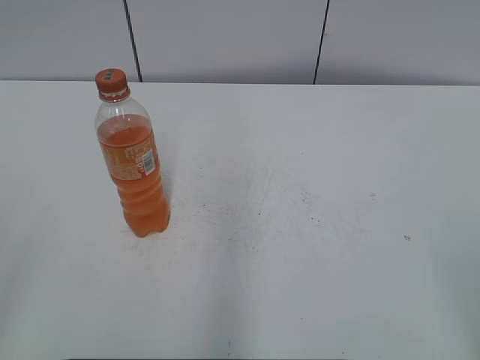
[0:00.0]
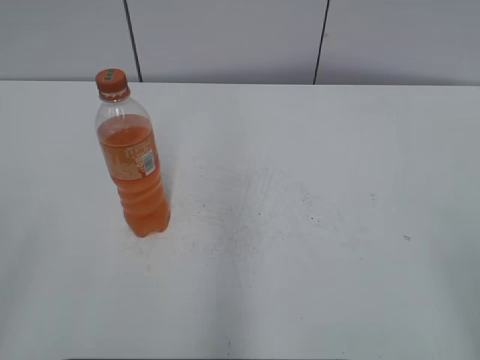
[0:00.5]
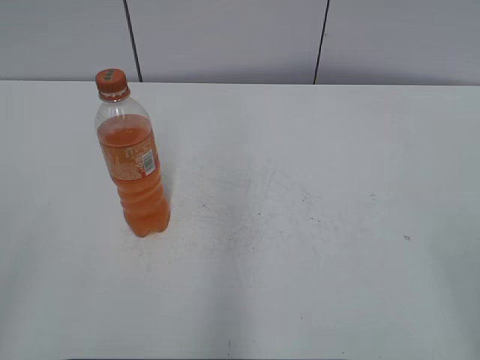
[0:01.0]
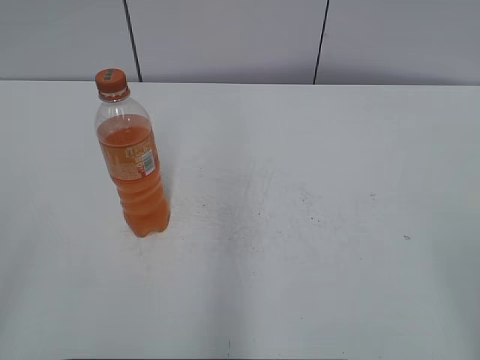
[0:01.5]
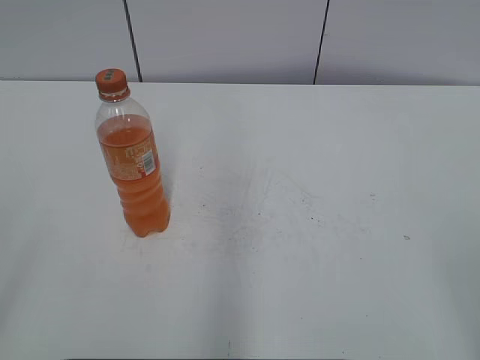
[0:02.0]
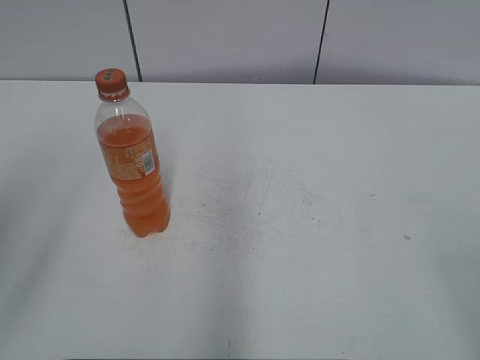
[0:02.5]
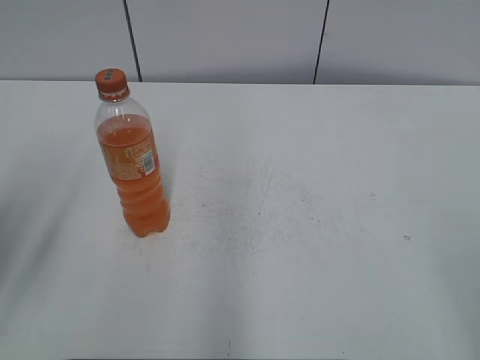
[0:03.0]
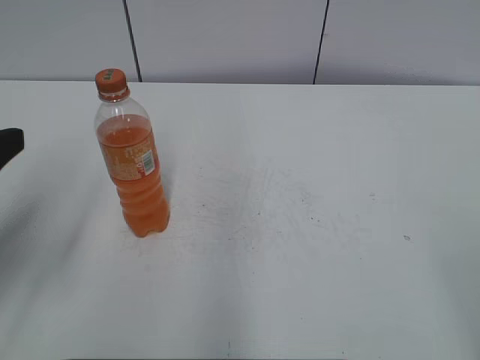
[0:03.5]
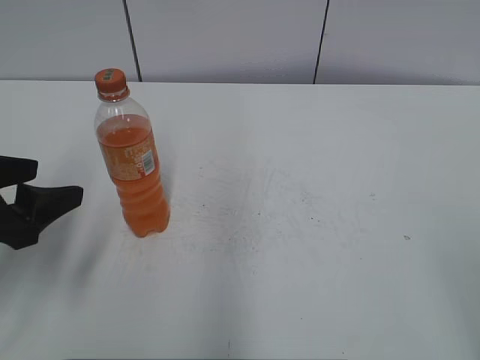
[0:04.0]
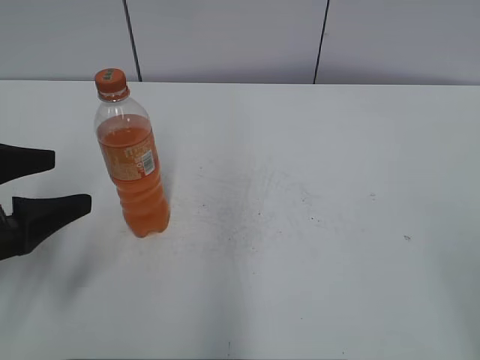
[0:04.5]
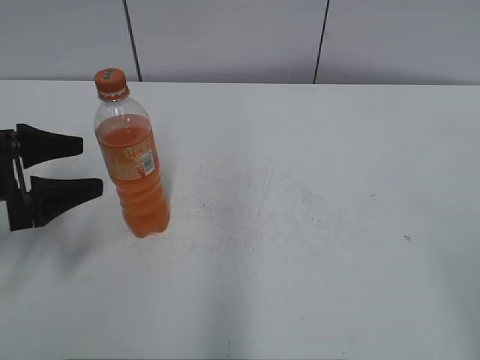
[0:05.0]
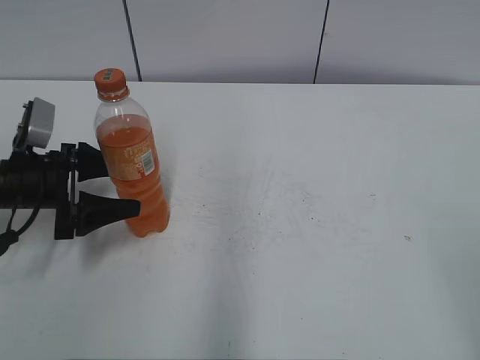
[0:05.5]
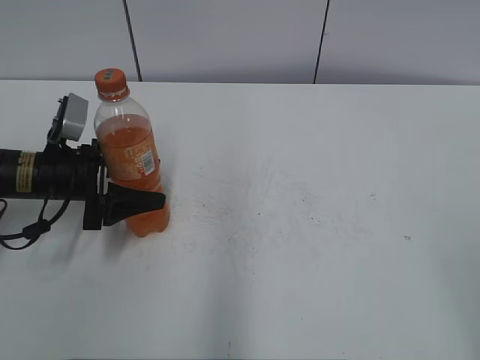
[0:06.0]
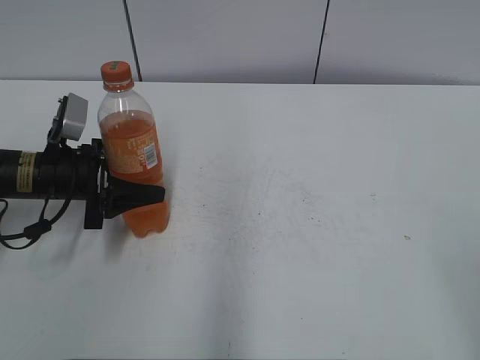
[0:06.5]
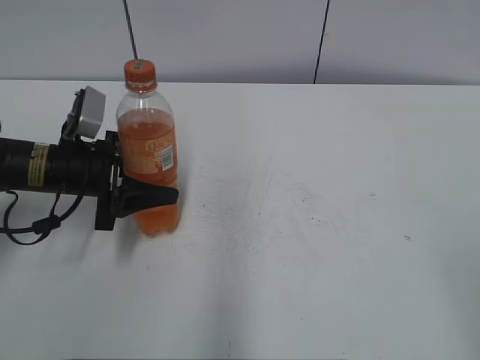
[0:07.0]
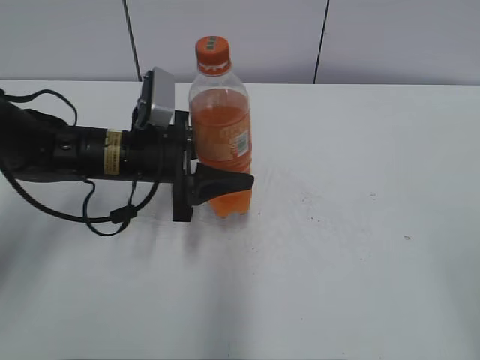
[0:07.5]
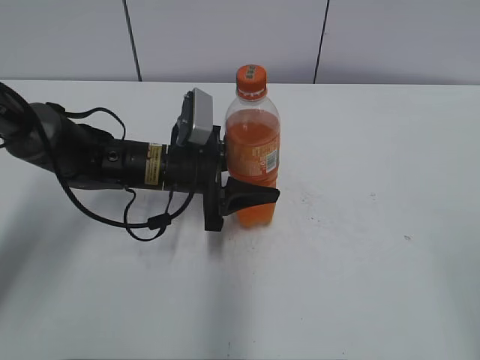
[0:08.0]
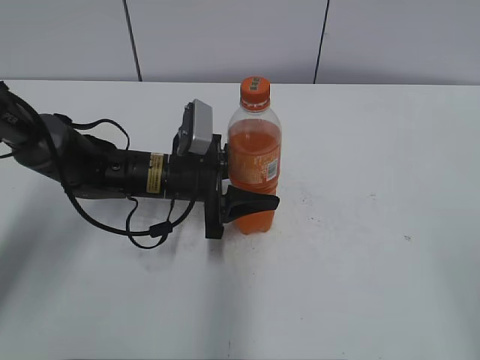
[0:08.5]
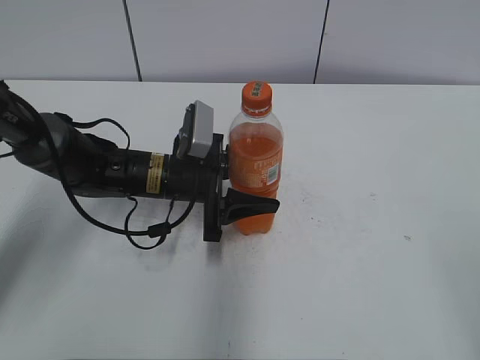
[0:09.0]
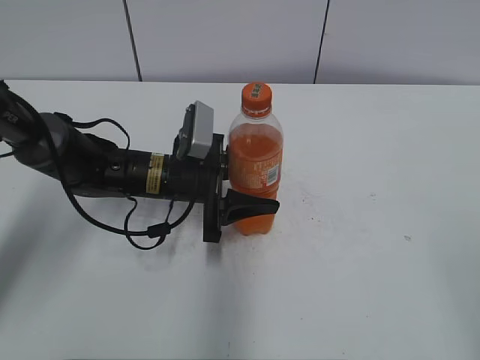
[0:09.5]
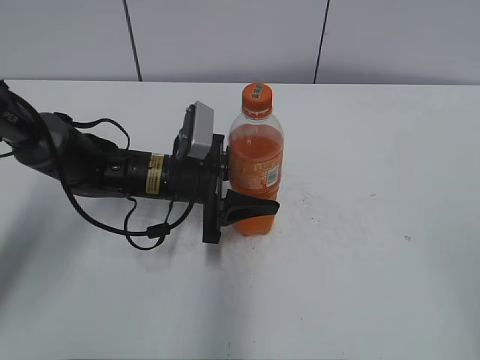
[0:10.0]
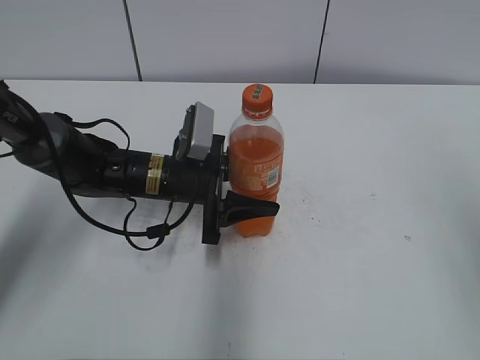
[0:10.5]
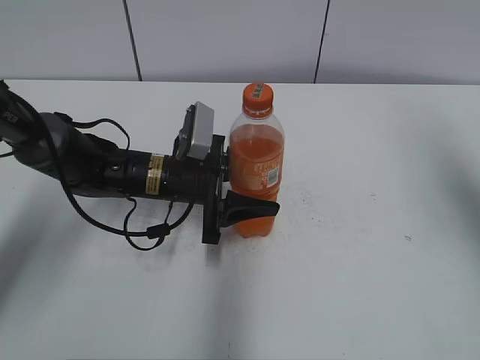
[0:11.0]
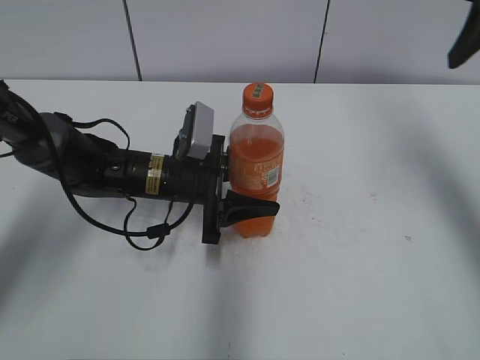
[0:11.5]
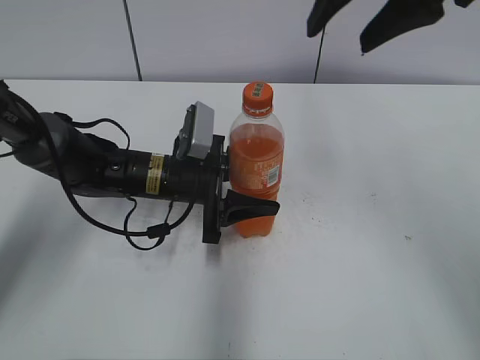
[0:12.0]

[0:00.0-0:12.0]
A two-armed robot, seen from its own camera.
Step, 0.0 to 6.0 s: Grab the Mirinda with the left hand.
Step, 6.5 to 10.0 s: Move the Mirinda from left to right.
2.0 to 4.0 s: The left gripper is displaced forward and downward by about 25 cm.
4.0 to 6.0 s: The left gripper shifts roughly 15 cm forward and downward.
6.0 to 8.0 s: The left gripper moves to the right, roughly 15 cm, and closes its fingers.
8.0 to 10.0 s: The grippers stay close to where they were, moving slightly.
10.0 to 12.0 s: The right gripper shifts some 35 cm forward and to the left.

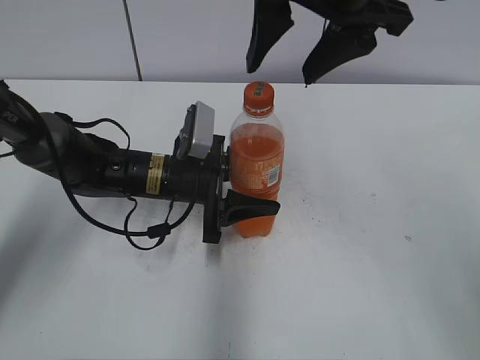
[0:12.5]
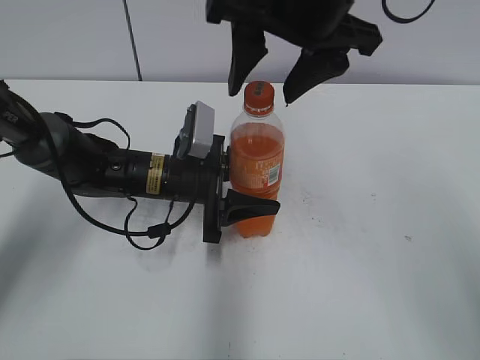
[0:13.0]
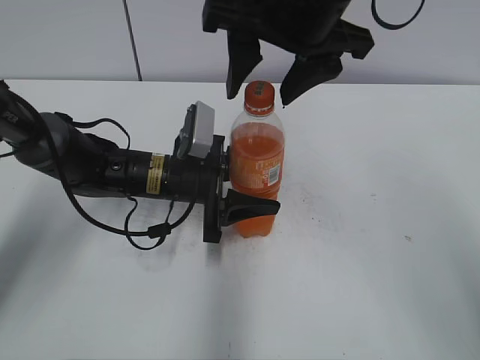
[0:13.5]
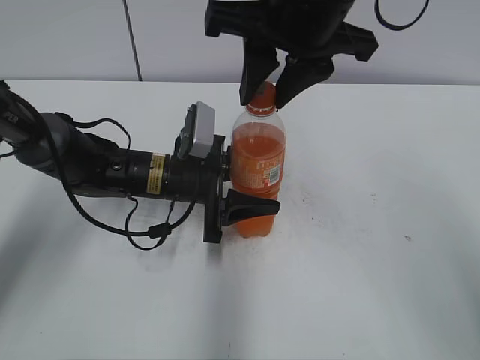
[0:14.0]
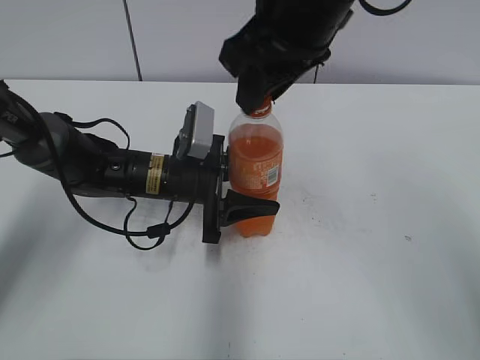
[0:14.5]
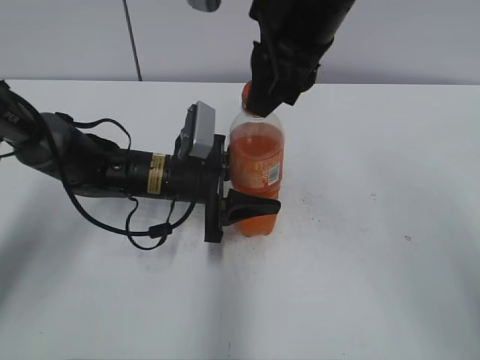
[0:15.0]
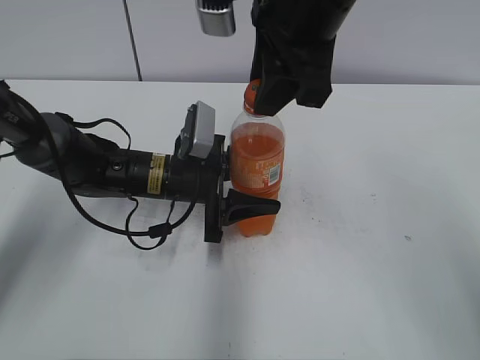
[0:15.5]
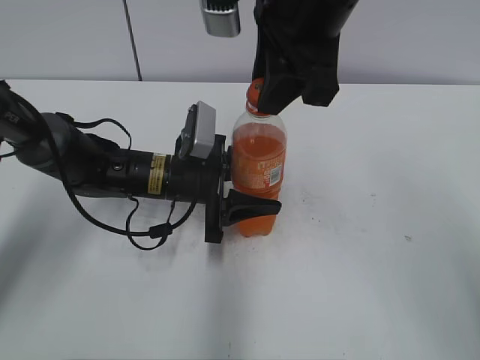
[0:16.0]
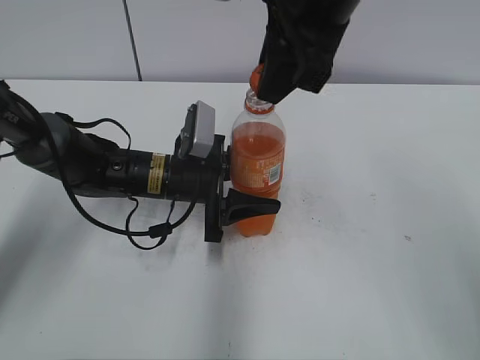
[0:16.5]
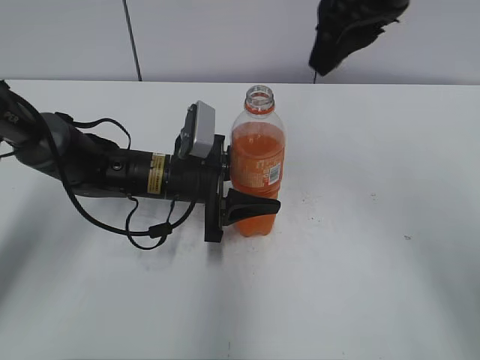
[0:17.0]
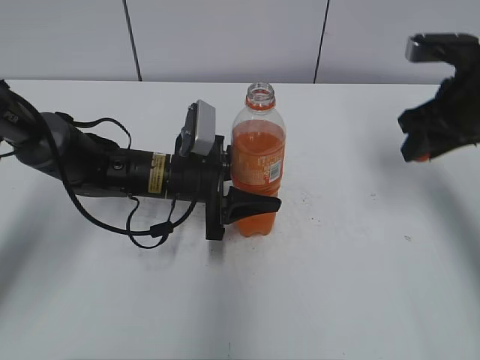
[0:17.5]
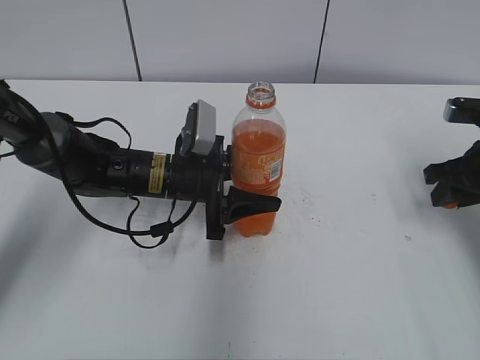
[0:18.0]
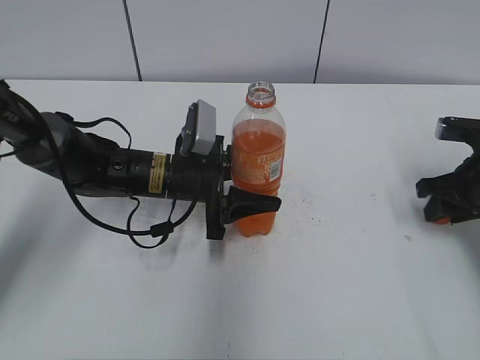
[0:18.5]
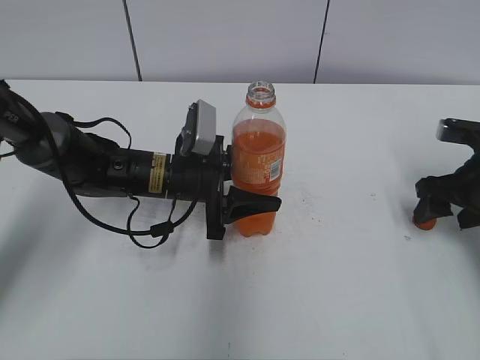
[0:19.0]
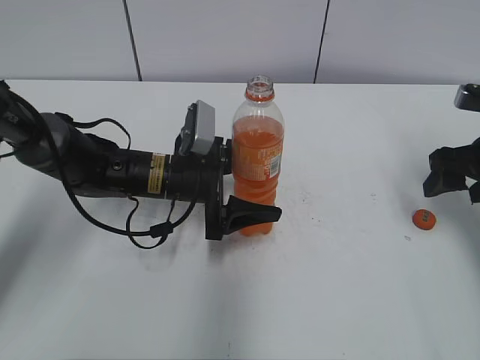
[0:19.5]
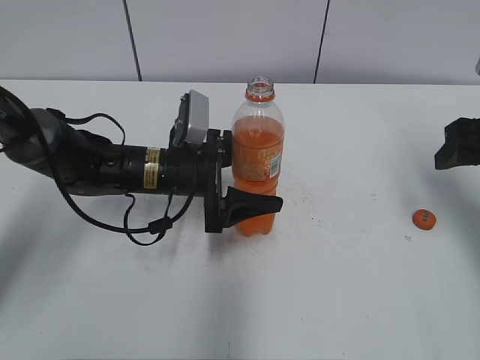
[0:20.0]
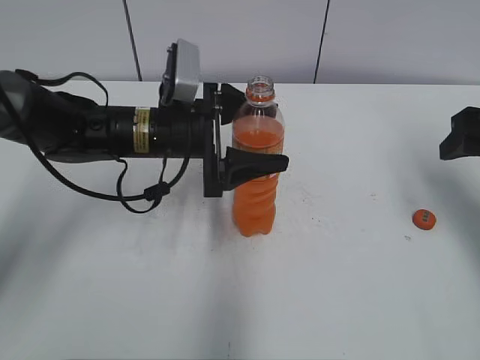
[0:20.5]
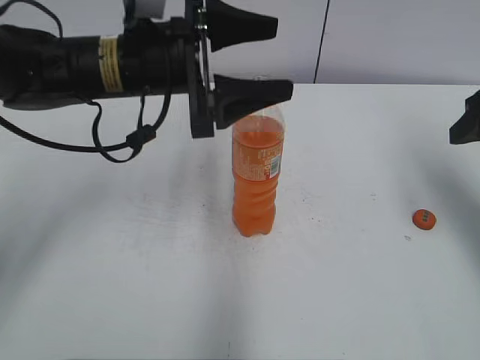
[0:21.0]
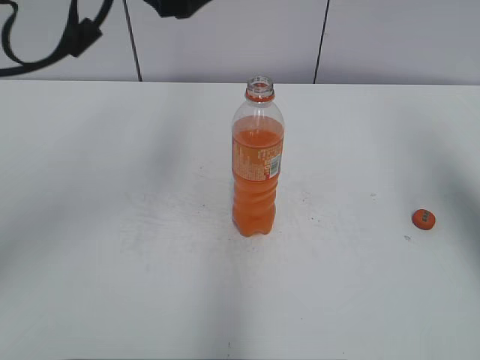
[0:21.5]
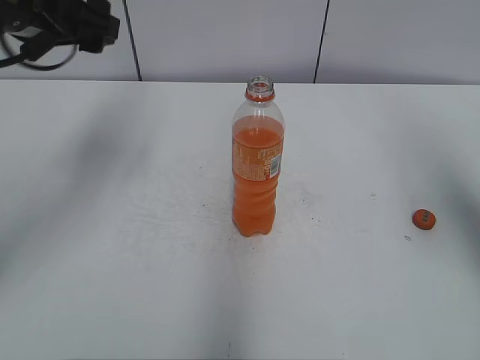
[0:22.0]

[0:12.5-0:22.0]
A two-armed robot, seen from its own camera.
Step, 17.0 to 18.5 s: Place the bottle cap on the right.
12.5 to 14.5 s: The right gripper closes its fingers.
16.5 to 18.0 s: The right gripper moves to the right and downward, approximately 30 cm.
18.0 to 20.0 s: The right gripper is displaced upward by some 5 cm, and opens. The left gripper opens up.
20.0 to 22.0 s: The right gripper travels upward and backward by roughly 15 cm, while the left gripper moves upward and to the left, about 25 cm.

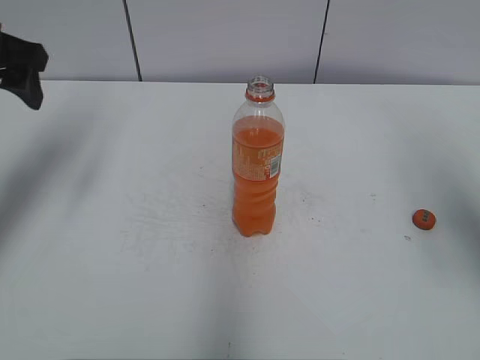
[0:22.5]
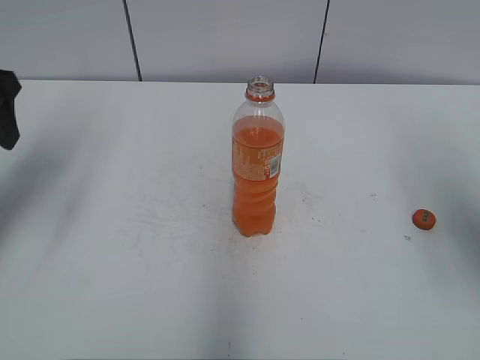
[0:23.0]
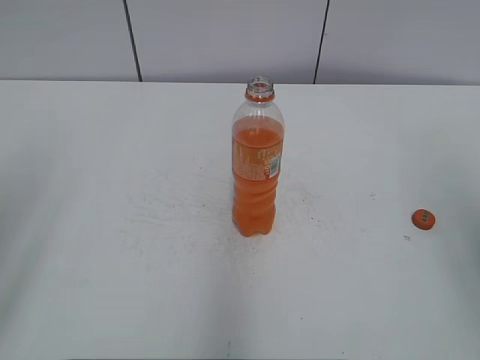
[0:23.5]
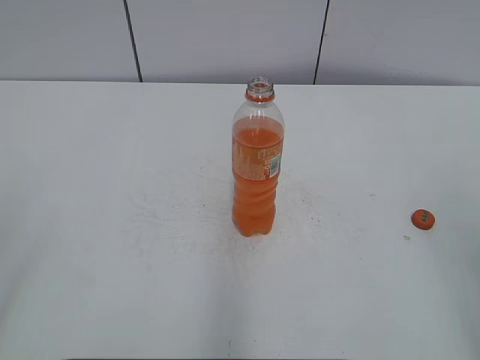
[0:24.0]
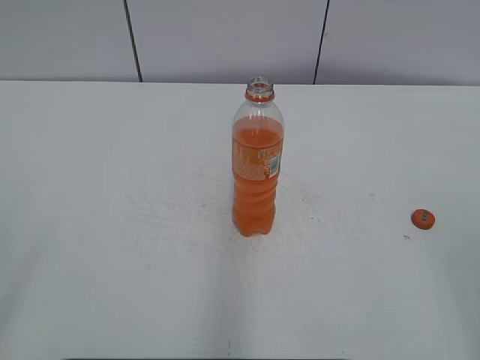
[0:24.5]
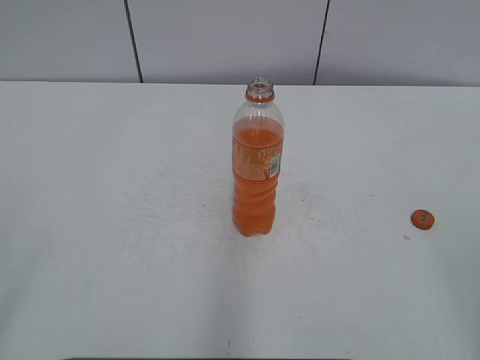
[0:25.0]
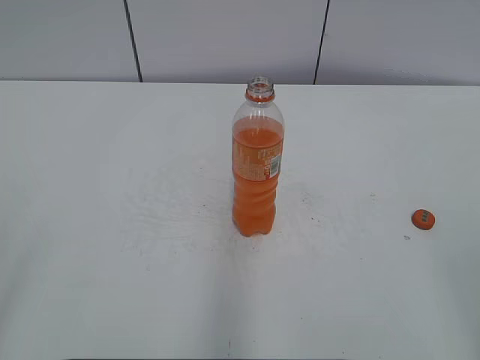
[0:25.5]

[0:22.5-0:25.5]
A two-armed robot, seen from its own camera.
22.5 to 24.0 s: The right gripper travels backward by about 15 cm. Meanwhile the left gripper is displaced backward by some 30 cm.

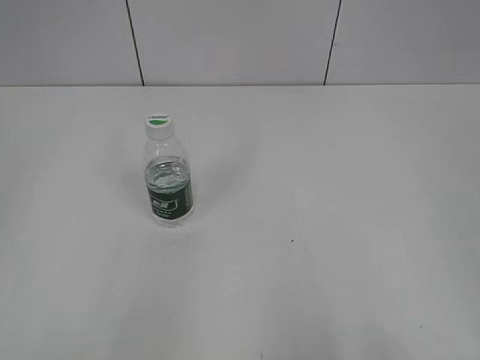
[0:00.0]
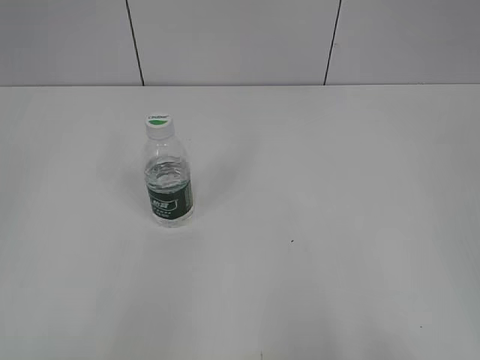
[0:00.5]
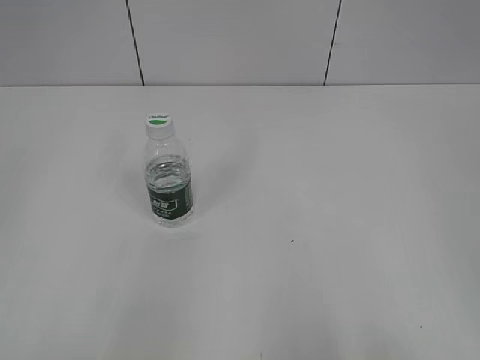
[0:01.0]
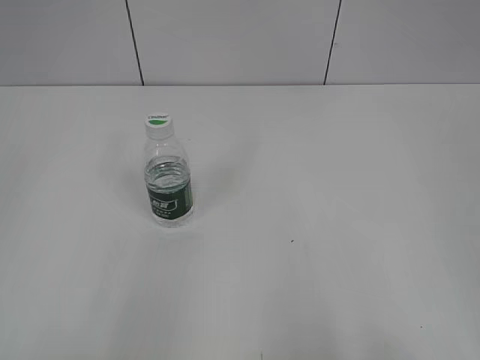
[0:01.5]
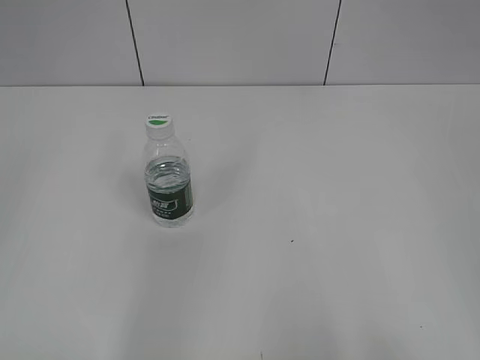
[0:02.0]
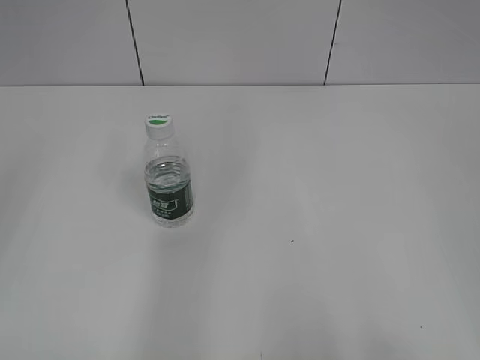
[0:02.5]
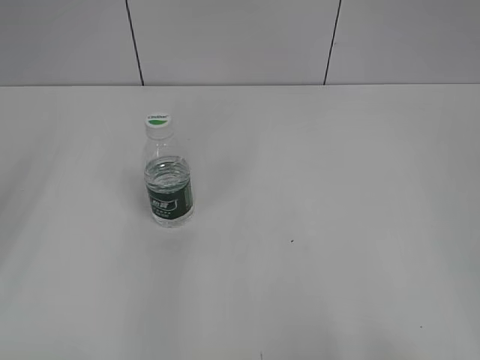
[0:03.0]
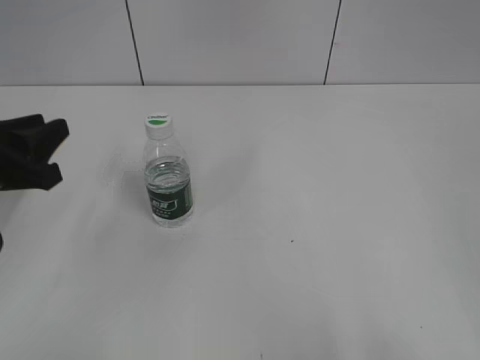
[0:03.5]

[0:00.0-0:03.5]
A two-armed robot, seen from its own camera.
2.0 to 3.5 s: The left gripper travels forward and downward by approximately 25 cm.
